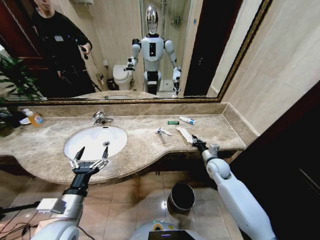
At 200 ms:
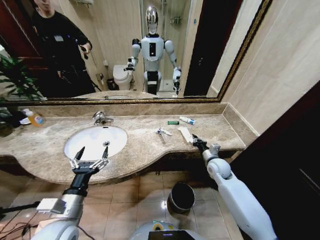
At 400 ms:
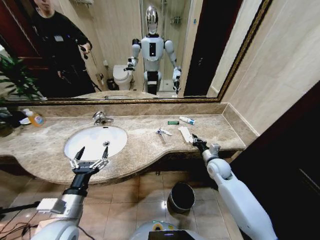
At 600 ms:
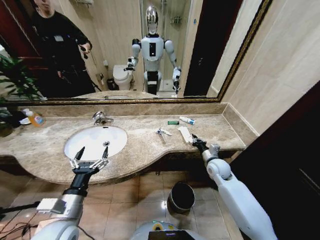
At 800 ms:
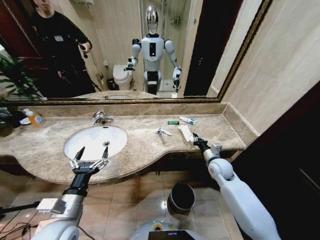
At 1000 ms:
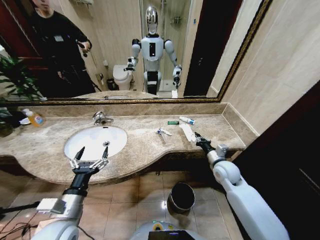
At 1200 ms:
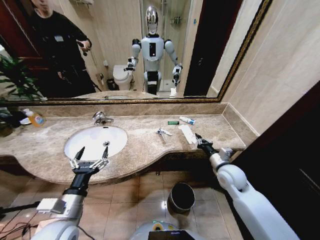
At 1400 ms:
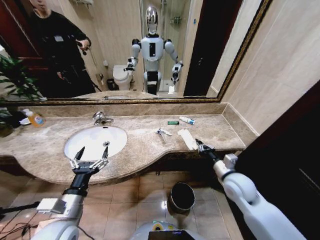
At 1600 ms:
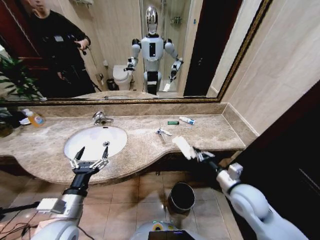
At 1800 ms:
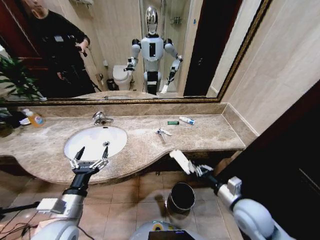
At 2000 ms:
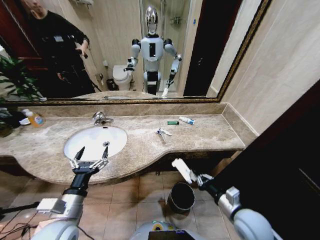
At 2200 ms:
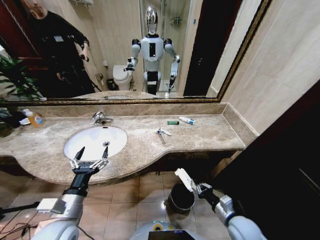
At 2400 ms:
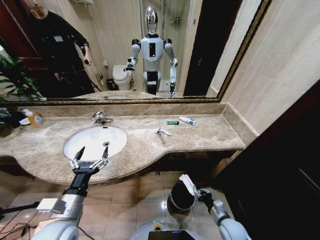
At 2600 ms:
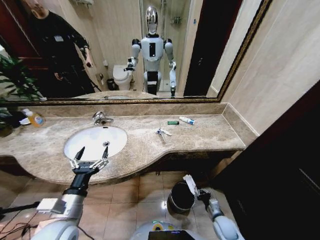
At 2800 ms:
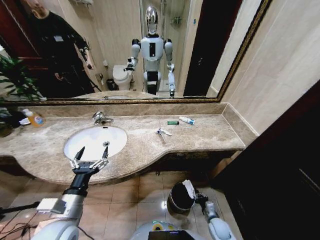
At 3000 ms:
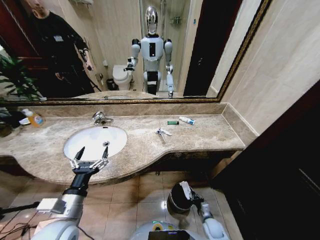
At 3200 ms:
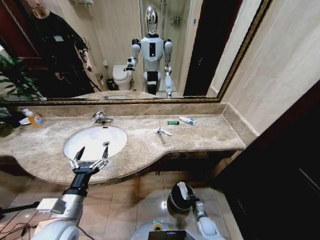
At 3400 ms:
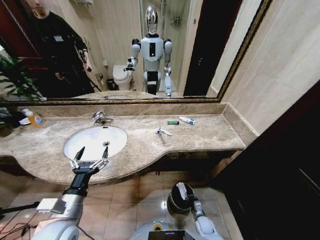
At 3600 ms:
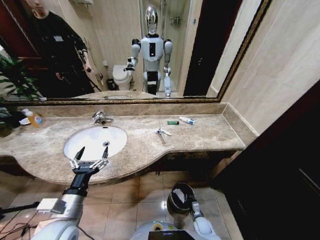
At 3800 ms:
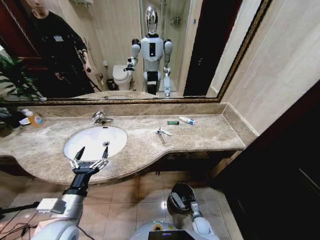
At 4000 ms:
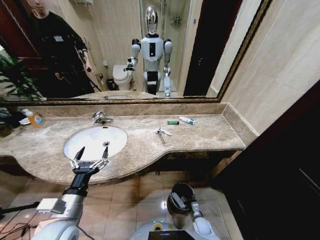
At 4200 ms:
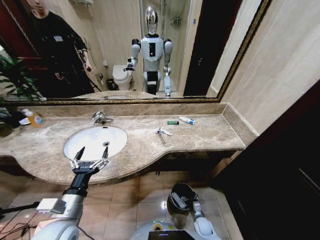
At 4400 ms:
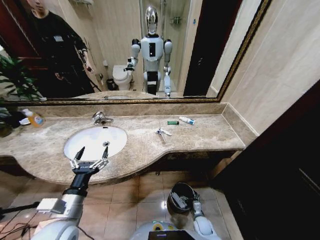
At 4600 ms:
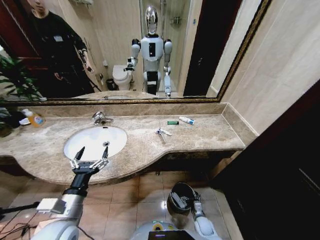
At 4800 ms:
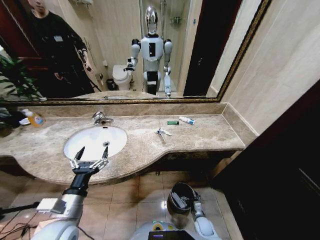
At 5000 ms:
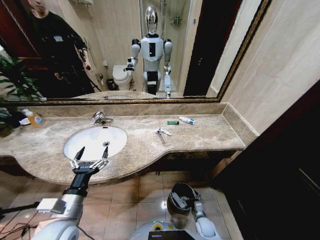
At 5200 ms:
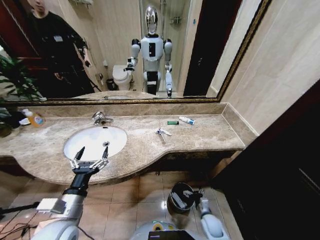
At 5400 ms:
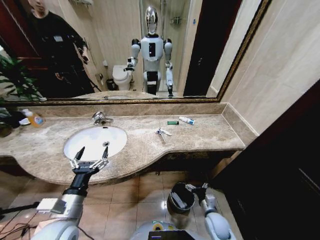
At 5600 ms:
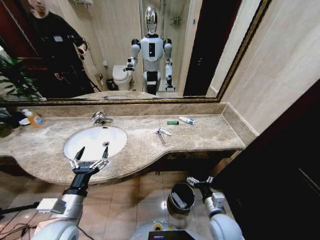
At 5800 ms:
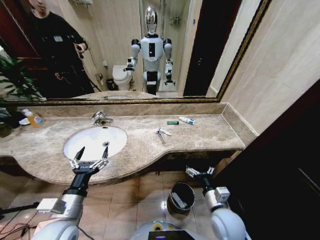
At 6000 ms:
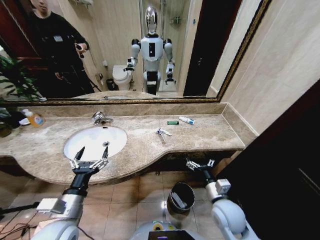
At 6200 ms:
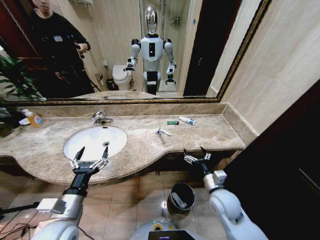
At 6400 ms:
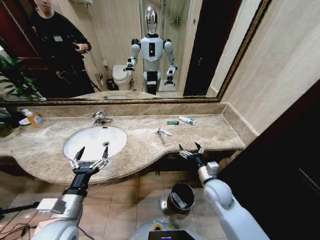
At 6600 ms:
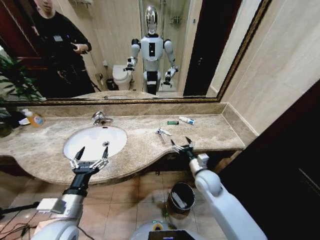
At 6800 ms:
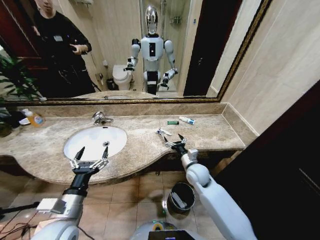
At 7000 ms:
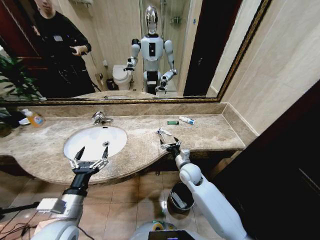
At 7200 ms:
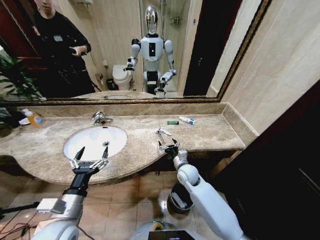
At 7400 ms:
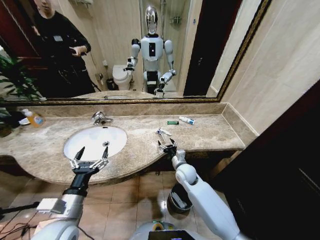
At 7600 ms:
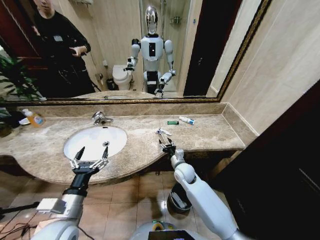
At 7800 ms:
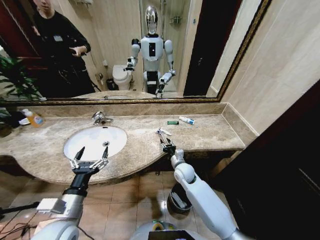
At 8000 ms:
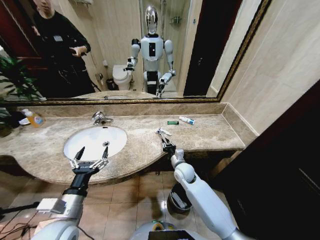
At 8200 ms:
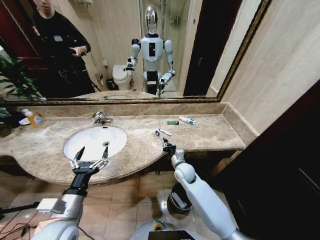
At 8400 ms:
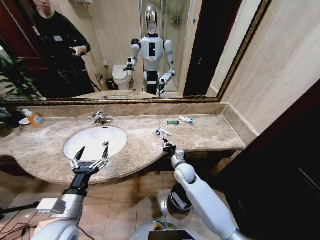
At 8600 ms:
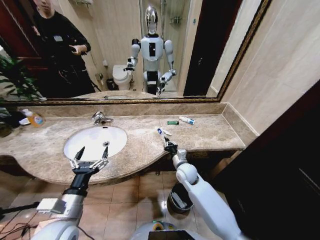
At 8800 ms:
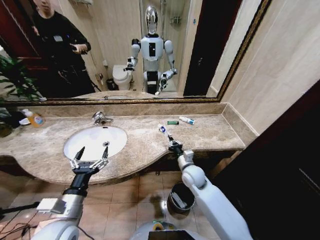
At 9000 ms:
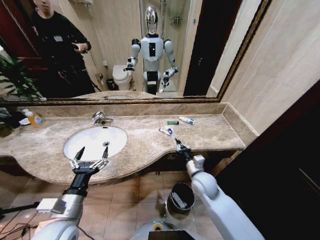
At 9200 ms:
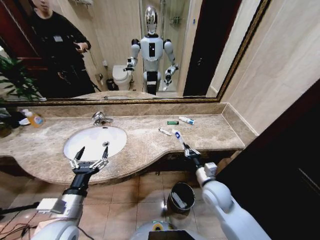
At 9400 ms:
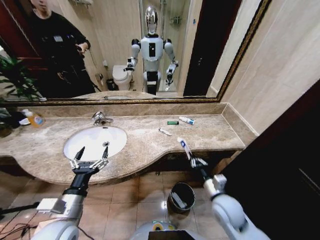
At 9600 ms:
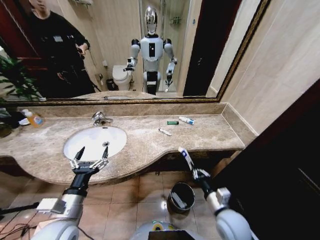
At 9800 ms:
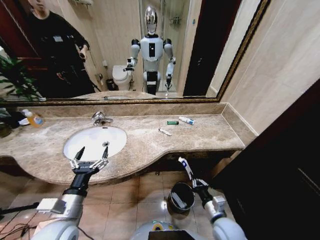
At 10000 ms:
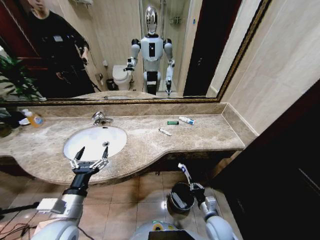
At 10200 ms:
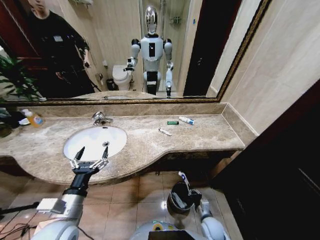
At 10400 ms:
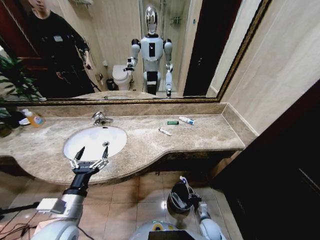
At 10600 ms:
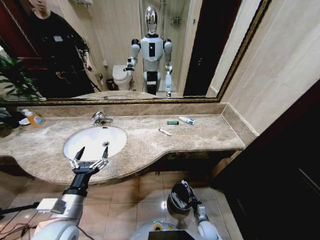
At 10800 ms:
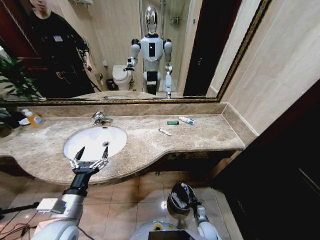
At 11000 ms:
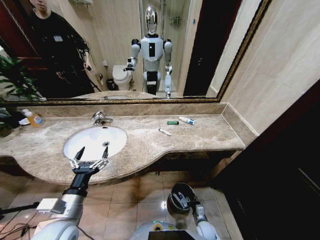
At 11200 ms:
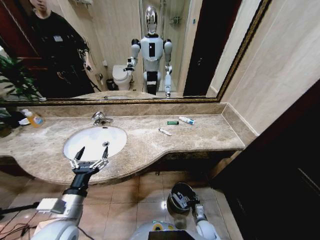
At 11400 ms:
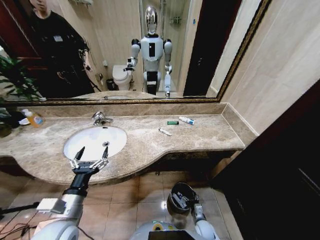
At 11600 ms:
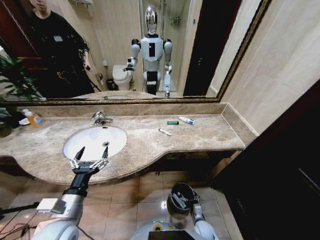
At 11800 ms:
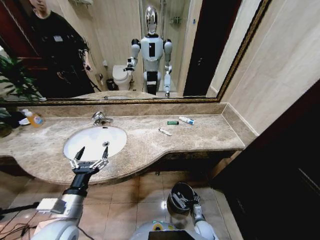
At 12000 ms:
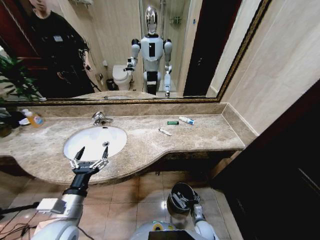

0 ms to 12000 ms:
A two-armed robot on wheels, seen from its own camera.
Task of the whole recording: Pick up the trash from the sink and place it in the trash bin.
0 ms to 1600 ms: The right gripper goes roughly 20 cm backward and upward.
1600 ms to 3000 ms: The right gripper travels downward by approximately 35 cm.
3000 ms to 4400 ms: The right gripper opens its fingers.
4400 ms to 6000 ms: The right gripper shifts about 30 cm upward.
6000 ms to 7600 ms: The right gripper moves forward and to the left, approximately 20 cm.
7600 ms to 9000 ms: The right gripper moves backward and to the right, some 10 cm, and closes.
9000 ms to 10400 ms: The right gripper moves downward and backward, some 30 cm.
10400 ms to 12000 ms: The right gripper opens up.

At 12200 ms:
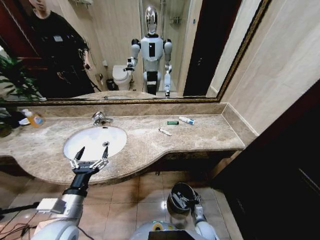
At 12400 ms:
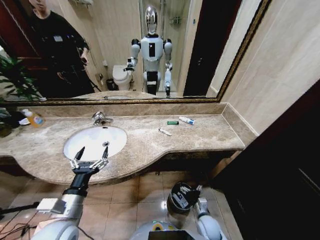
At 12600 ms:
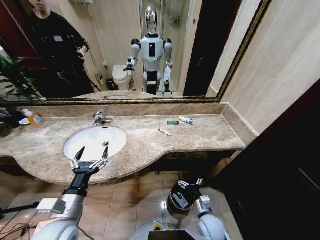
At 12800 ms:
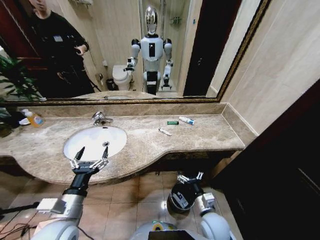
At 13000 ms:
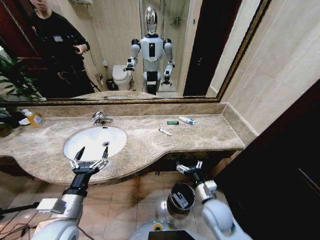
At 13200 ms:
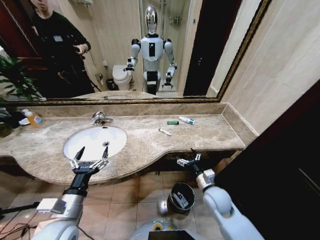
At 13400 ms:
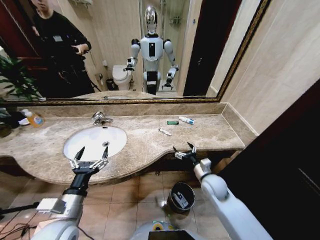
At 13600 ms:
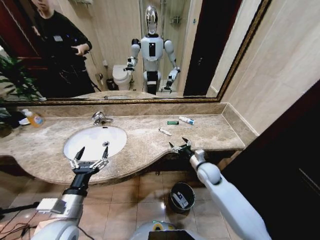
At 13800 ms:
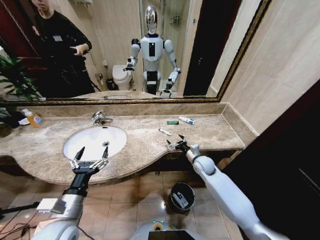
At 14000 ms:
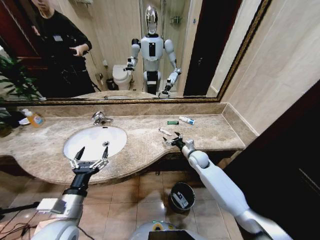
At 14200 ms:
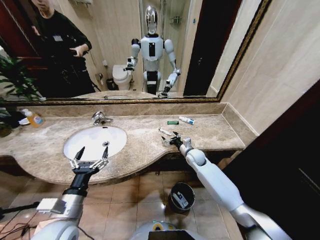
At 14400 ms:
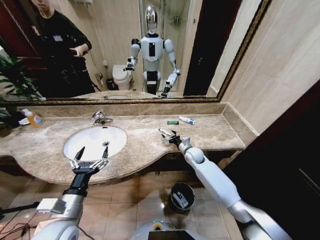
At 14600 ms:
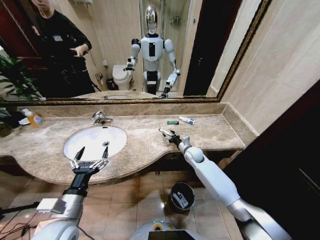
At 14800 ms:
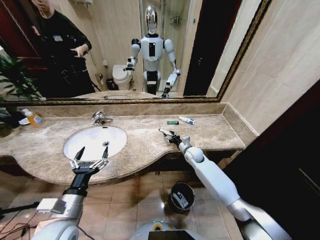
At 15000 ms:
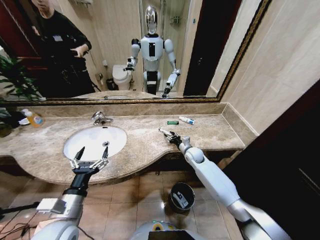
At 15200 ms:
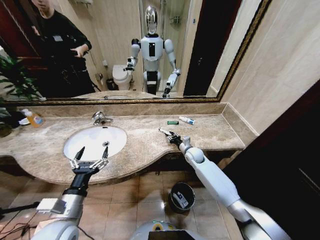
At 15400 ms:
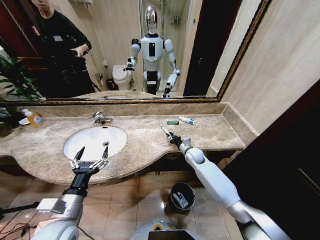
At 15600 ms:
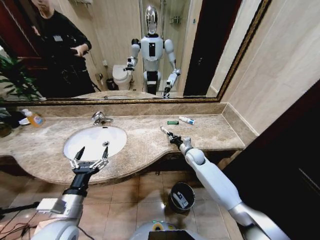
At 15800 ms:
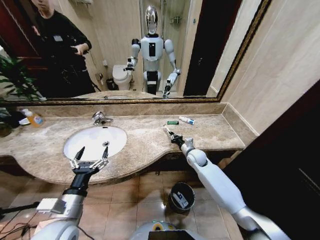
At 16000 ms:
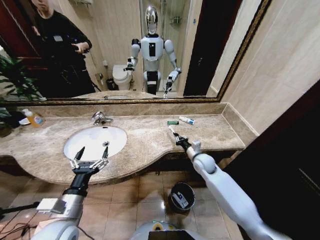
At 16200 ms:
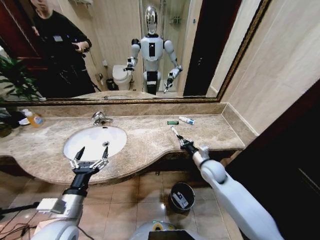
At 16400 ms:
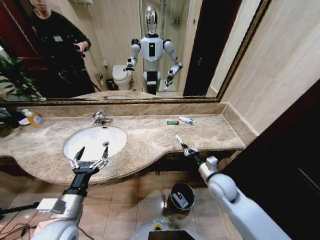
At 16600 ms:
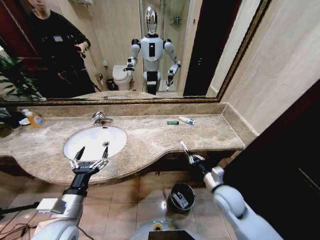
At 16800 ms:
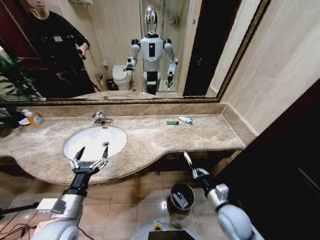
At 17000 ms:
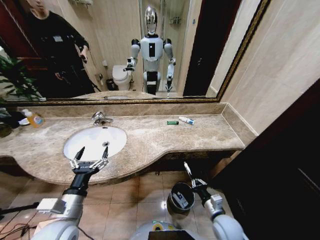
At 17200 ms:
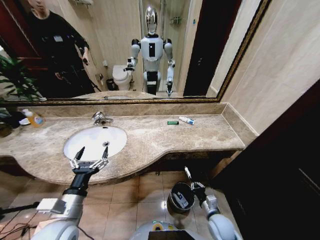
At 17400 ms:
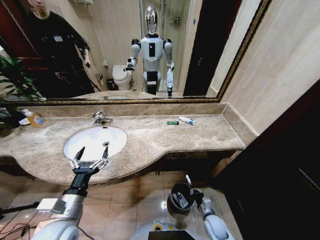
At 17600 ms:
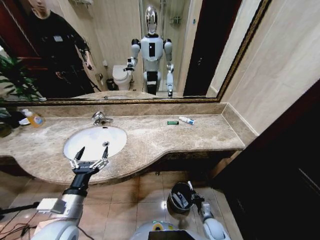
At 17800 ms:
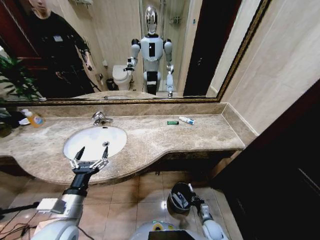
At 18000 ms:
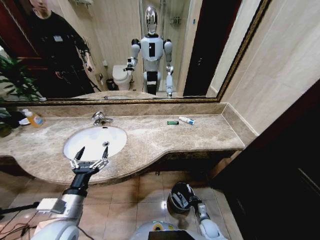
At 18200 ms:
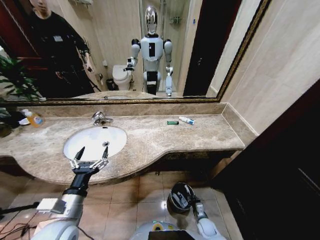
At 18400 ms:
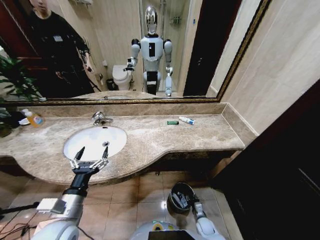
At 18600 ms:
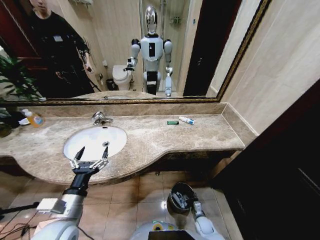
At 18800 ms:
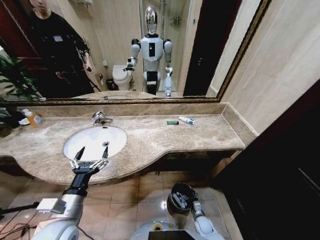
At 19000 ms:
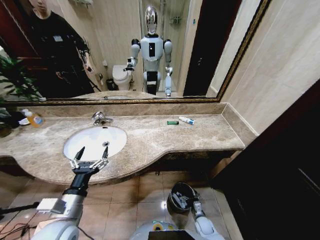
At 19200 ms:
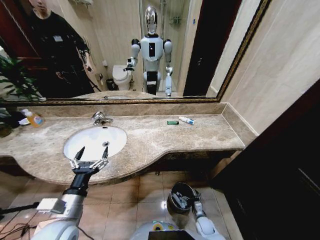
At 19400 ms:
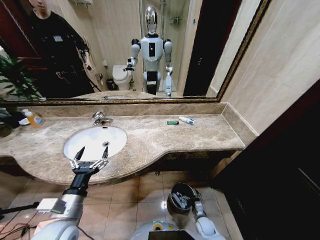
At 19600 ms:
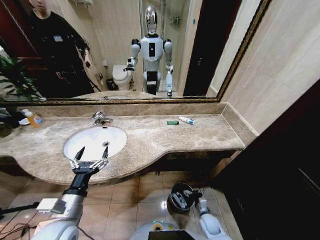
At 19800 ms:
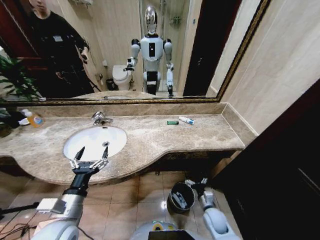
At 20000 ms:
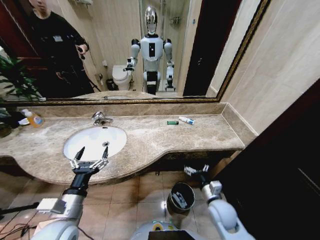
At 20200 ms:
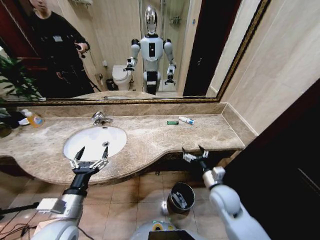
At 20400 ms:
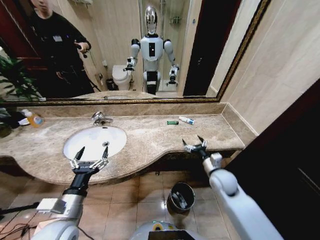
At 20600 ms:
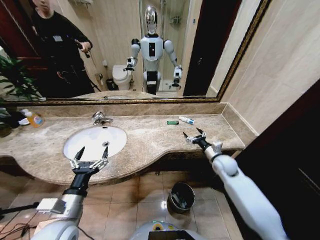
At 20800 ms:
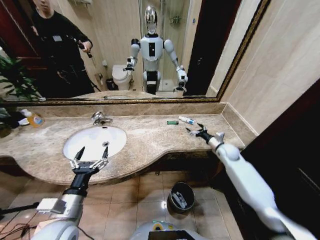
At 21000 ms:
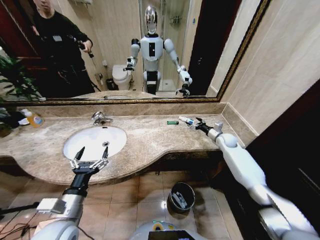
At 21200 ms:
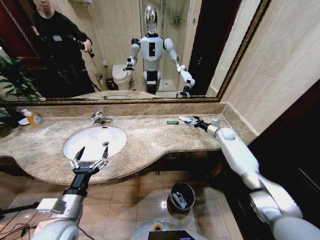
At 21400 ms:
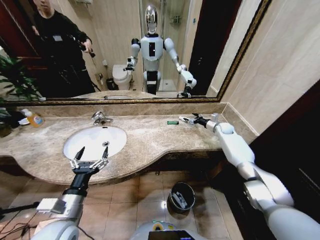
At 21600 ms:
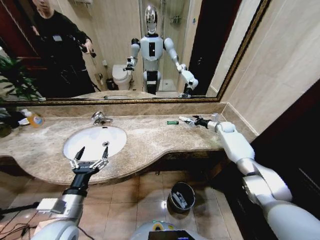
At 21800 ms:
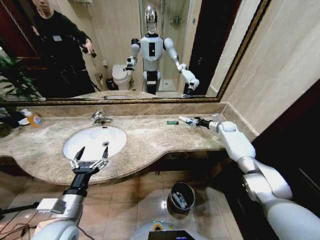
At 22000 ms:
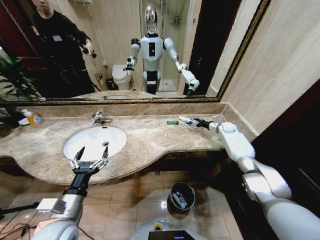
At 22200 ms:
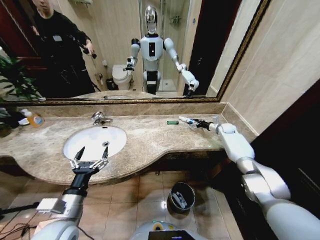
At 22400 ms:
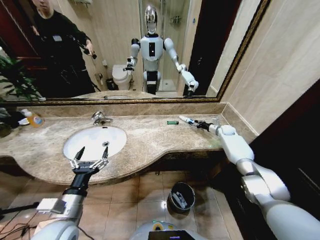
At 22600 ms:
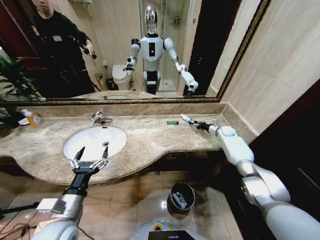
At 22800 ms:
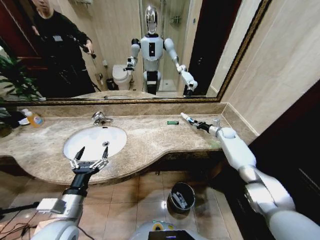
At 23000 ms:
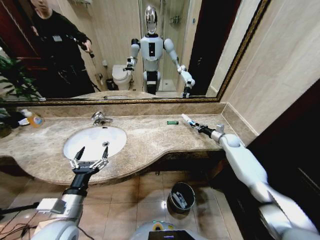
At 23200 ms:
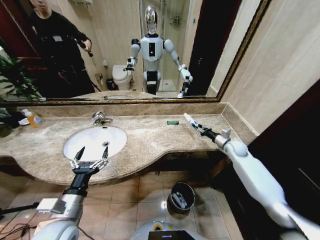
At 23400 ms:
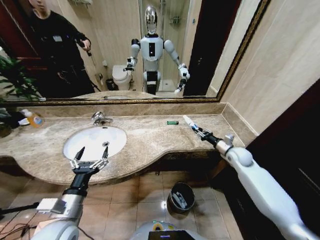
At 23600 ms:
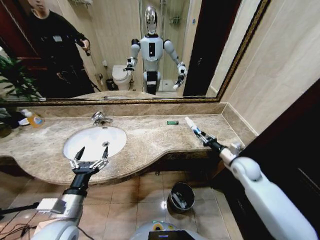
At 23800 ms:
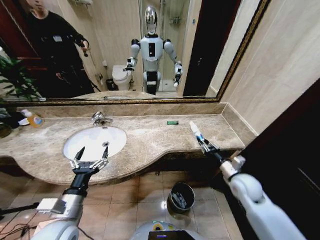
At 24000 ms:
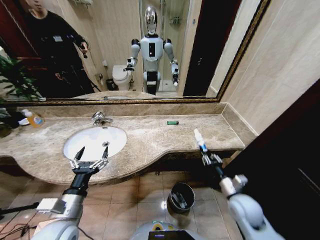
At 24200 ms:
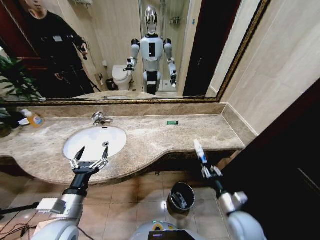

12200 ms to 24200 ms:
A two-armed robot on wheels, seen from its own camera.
Task of the whole recording: Pick up the trash from the sink and place it in the trash bin.
12200 ms to 13800 ms: The right gripper travels upward and forward by roughly 35 cm.
13800 ms to 15200 ms: The right gripper travels forward by roughly 5 cm, and closes up.
15200 ms to 16600 ms: The right gripper is displaced backward by about 25 cm, and closes up.
16600 ms to 18200 ms: The right gripper heads downward, covering about 30 cm.
18200 ms to 19800 ms: The right gripper goes some 15 cm upward, and opens its fingers.
19800 ms to 21200 ms: The right gripper moves forward, upward and to the right, some 40 cm.
21200 ms to 22600 ms: The right gripper closes its fingers.
22600 ms to 24200 ms: The right gripper goes about 40 cm backward.
